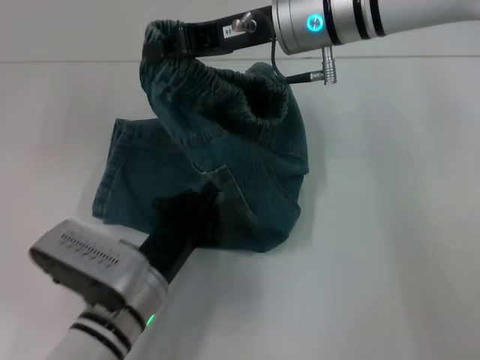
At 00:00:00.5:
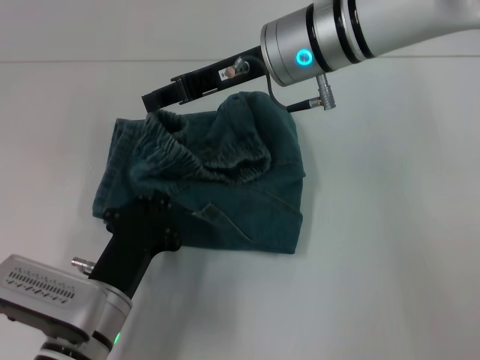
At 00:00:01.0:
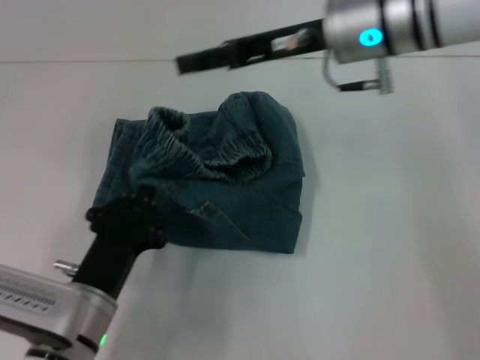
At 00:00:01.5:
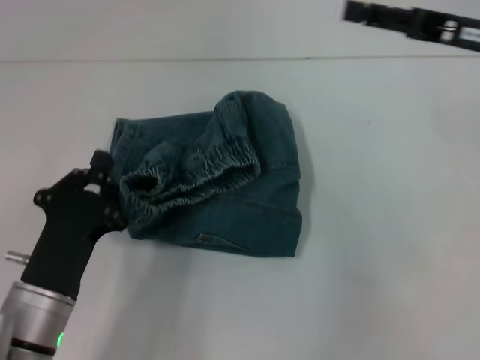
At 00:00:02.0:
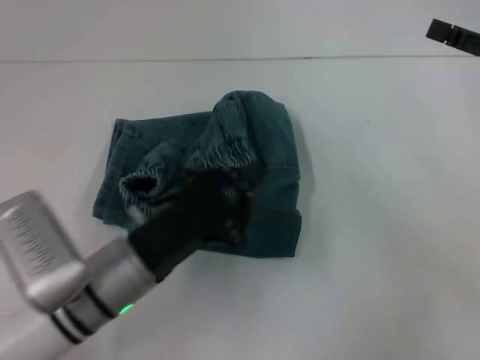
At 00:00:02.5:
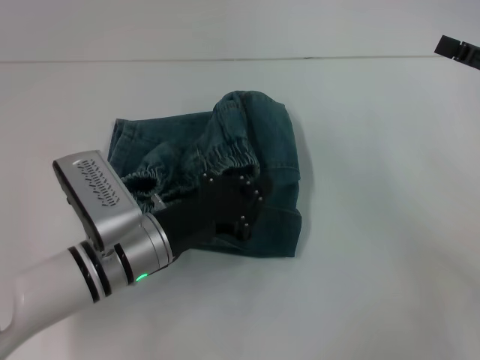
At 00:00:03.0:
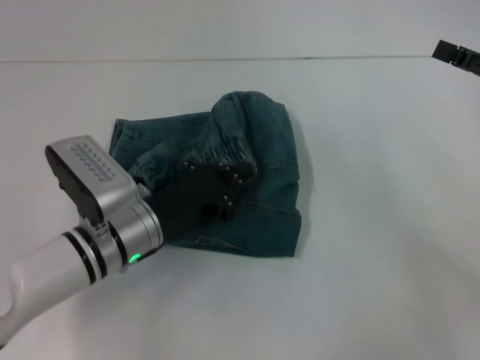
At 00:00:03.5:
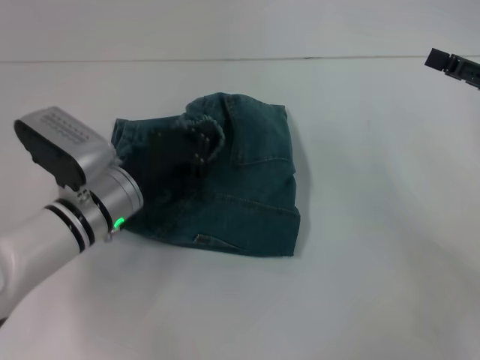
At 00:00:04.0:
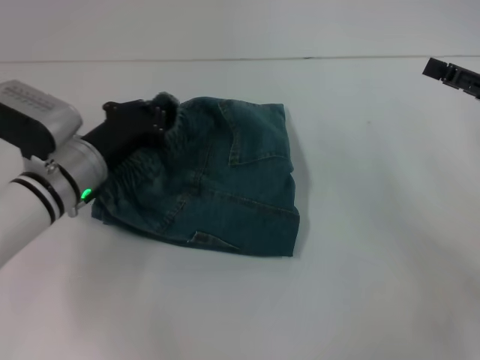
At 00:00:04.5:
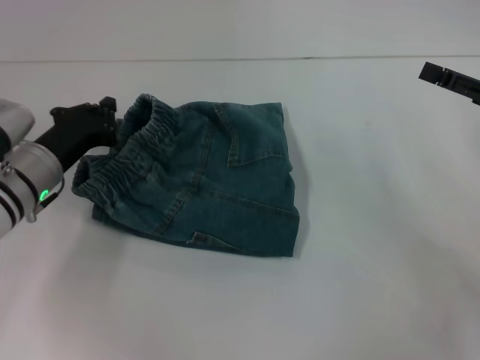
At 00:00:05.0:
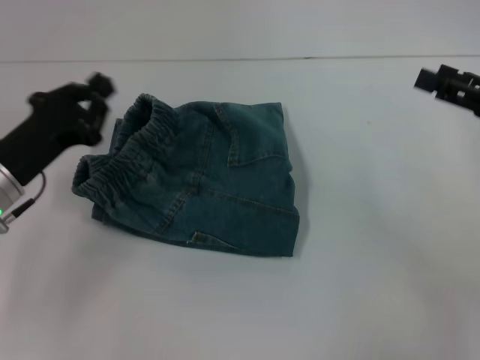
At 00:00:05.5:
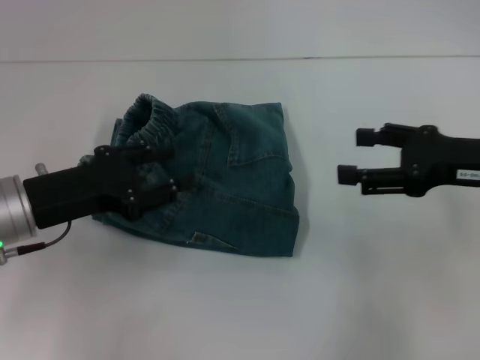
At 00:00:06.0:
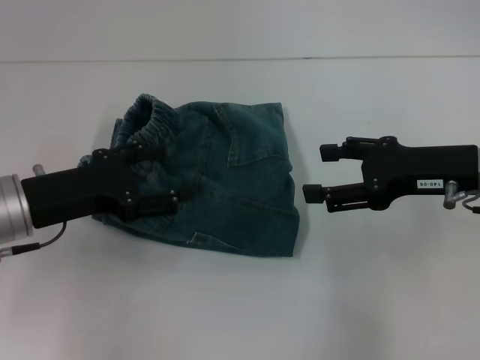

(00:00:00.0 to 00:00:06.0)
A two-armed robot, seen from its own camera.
Step, 00:00:01.0 - 00:00:04.0: Adjust the pants with your left hand.
00:00:00.0 - 00:00:02.0: The right gripper is displaced to the right by some 25 cm, and opens its fingers.
00:00:02.0 - 00:00:04.0: The left gripper goes roughly 15 cm forward and to the left.
00:00:04.0 - 00:00:06.0: The left gripper heads backward, upward and to the left, covering roughly 10 cm, and opens. Meanwhile the right gripper travels to the left by about 10 cm.

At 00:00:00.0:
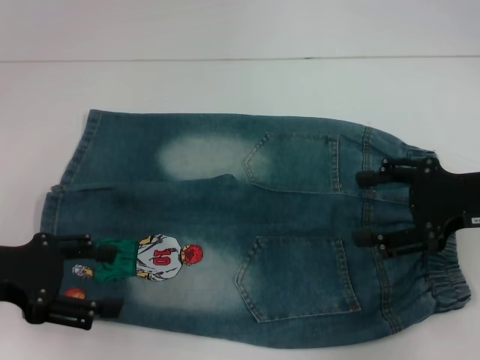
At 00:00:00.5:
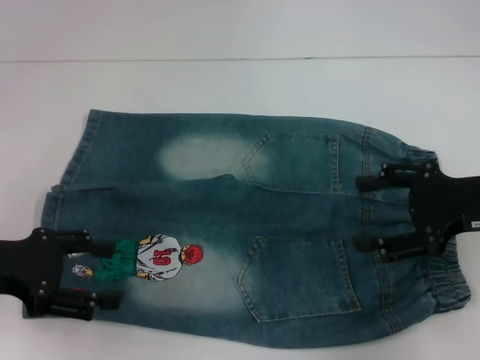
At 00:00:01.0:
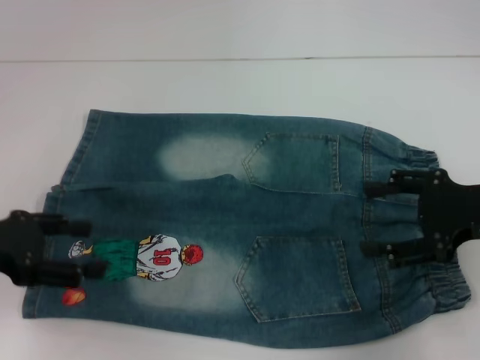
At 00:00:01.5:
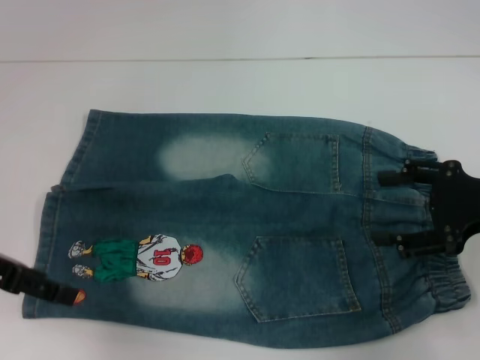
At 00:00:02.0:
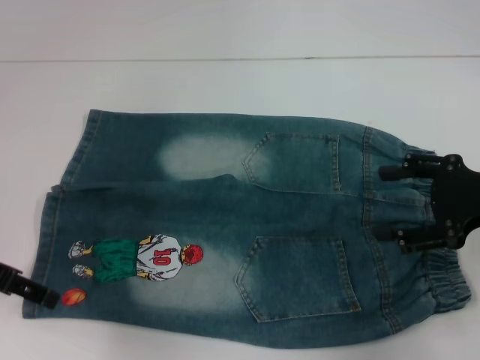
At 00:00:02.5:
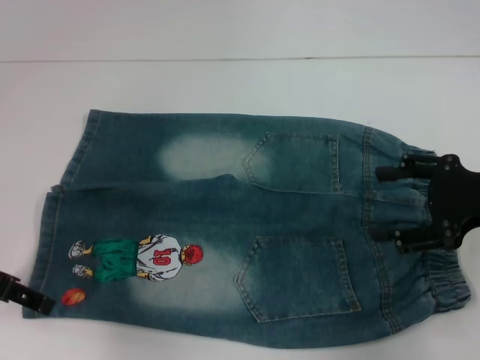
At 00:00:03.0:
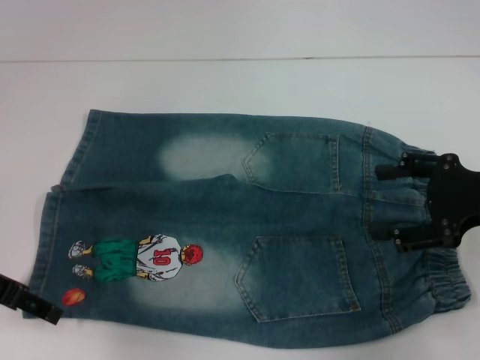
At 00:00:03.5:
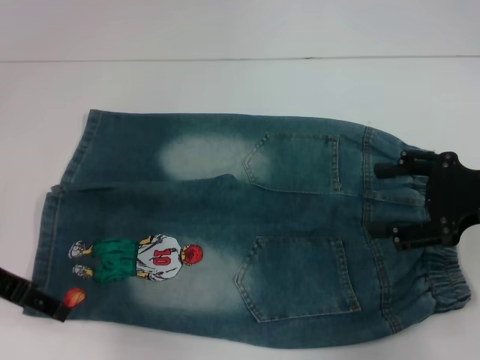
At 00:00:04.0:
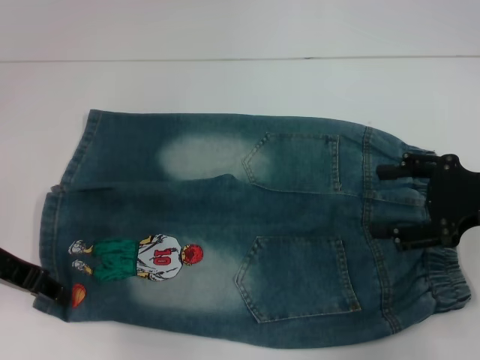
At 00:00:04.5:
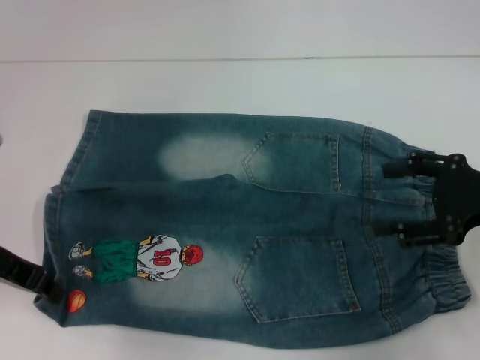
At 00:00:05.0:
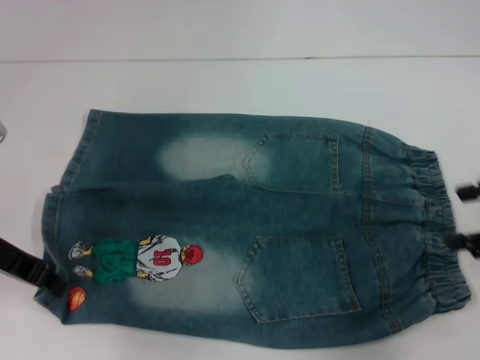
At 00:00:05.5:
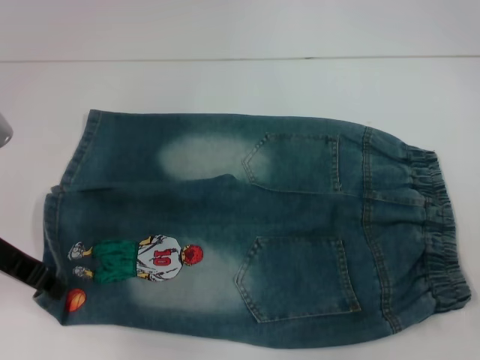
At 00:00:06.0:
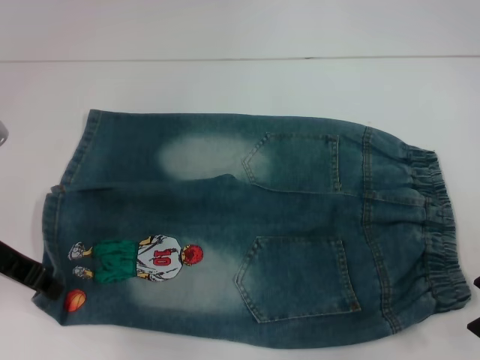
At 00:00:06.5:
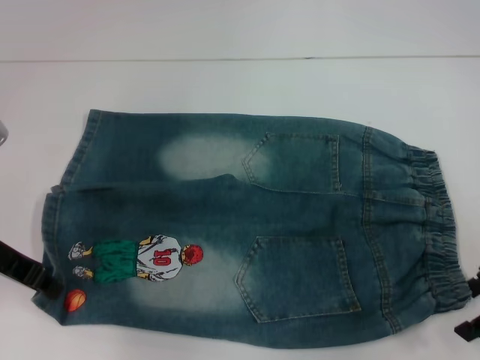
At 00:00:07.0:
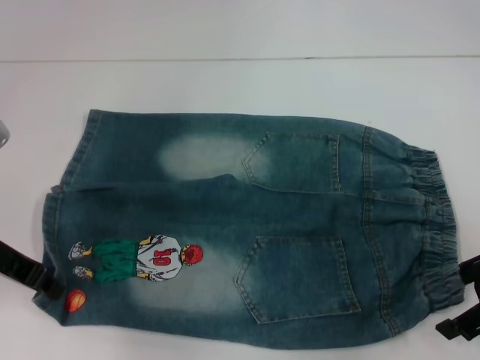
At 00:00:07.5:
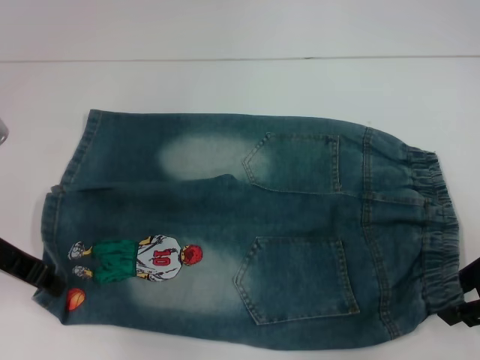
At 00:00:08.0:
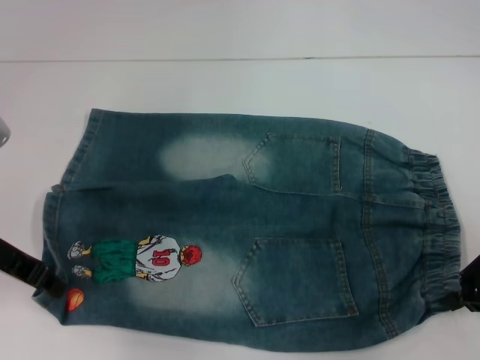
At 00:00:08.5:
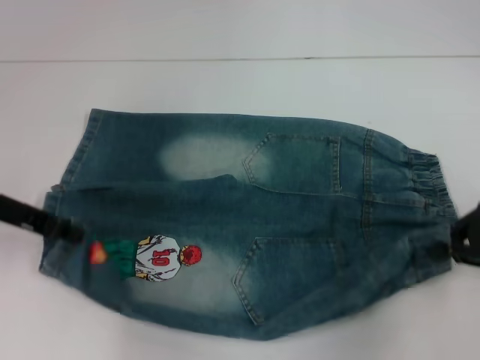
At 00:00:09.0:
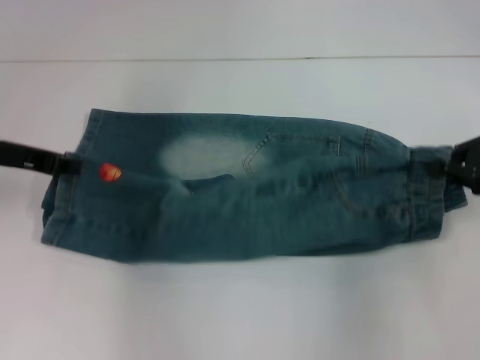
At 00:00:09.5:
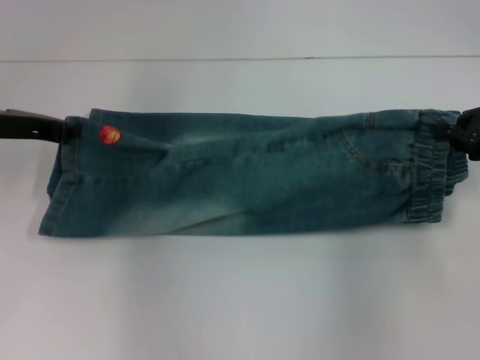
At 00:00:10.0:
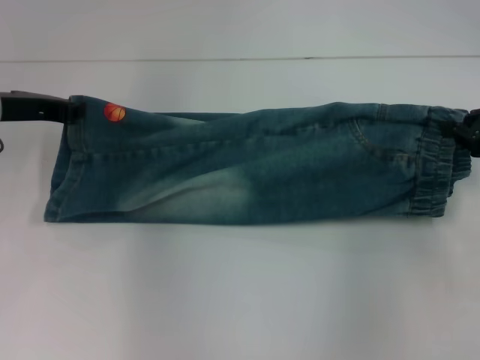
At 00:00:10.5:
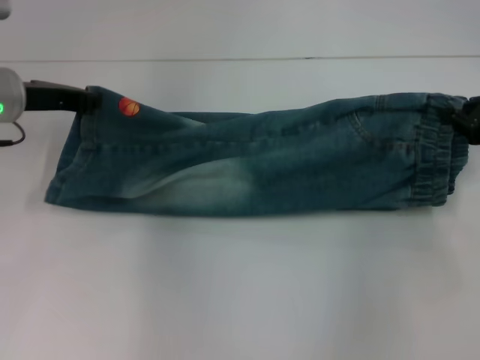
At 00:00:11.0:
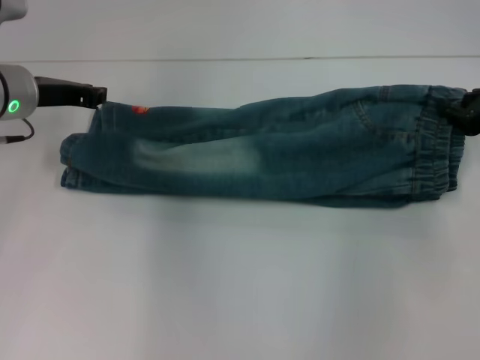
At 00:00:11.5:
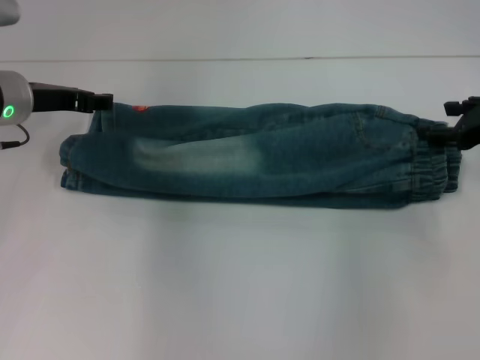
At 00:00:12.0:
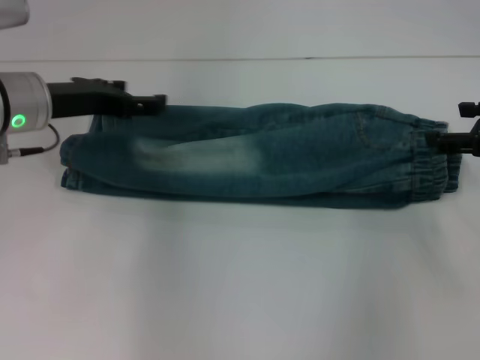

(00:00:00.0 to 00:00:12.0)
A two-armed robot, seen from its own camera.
Step, 00:00:00.0 - 00:00:03.5: Grab the lower left pant leg with your left hand.
Step, 00:00:04.0 - 00:00:07.5: Hold the lower right waistband with your right hand.
Step, 00:00:08.0 - 00:00:10.5: Fold upward with your left hand.
00:00:02.0 - 00:00:04.0: The left gripper closes up.
00:00:04.0 - 00:00:06.0: The left gripper closes.
00:00:06.0 - 00:00:08.0: The right gripper closes up.
00:00:08.0 - 00:00:10.0: Both grippers move forward, some 5 cm.
00:00:10.0 - 00:00:12.0: The left gripper opens up. Meanwhile the right gripper opens its fingers.

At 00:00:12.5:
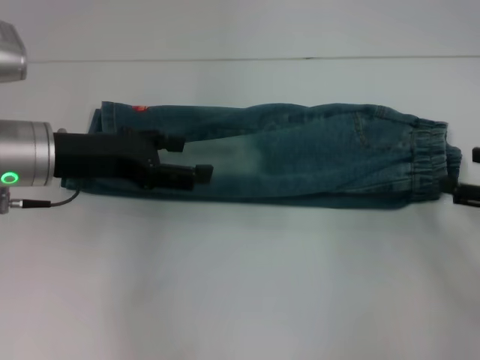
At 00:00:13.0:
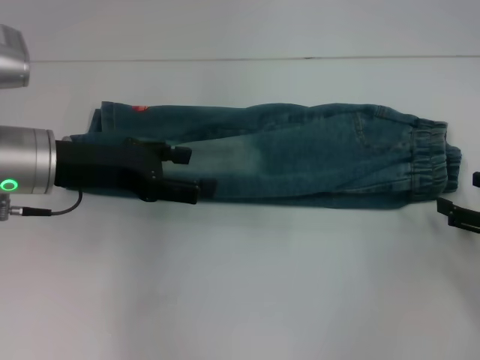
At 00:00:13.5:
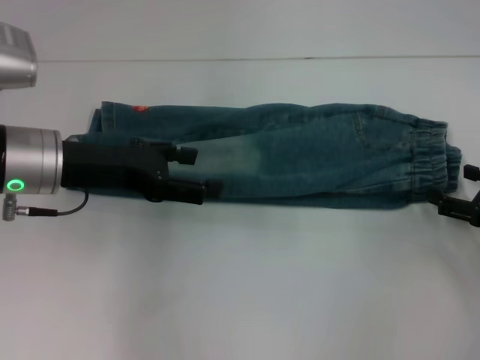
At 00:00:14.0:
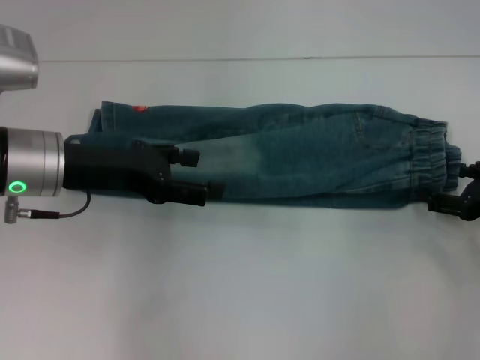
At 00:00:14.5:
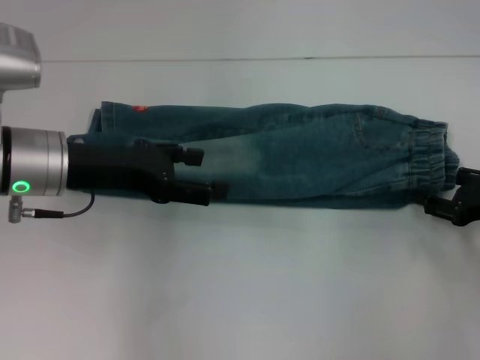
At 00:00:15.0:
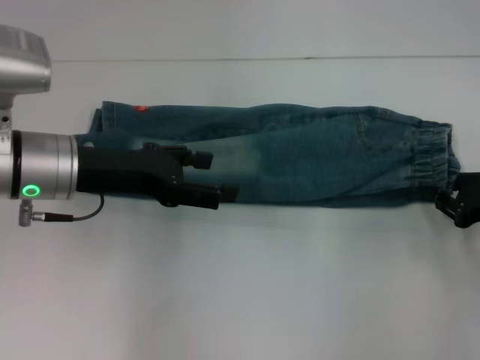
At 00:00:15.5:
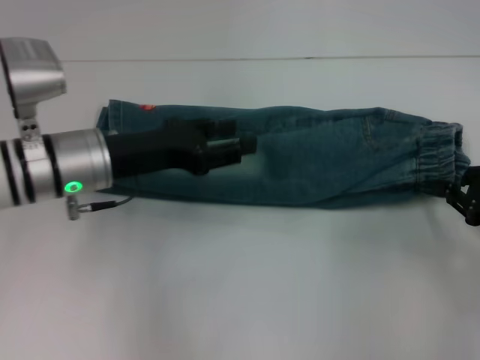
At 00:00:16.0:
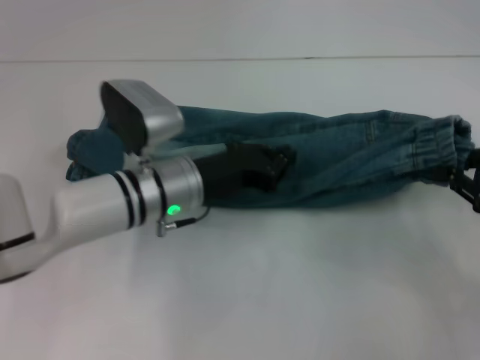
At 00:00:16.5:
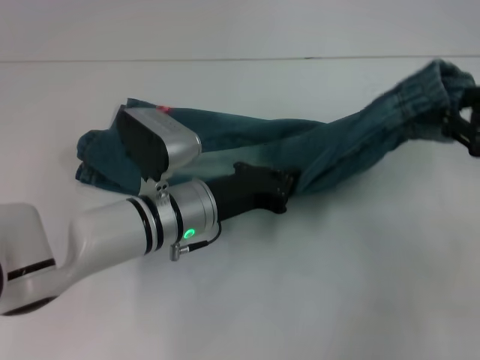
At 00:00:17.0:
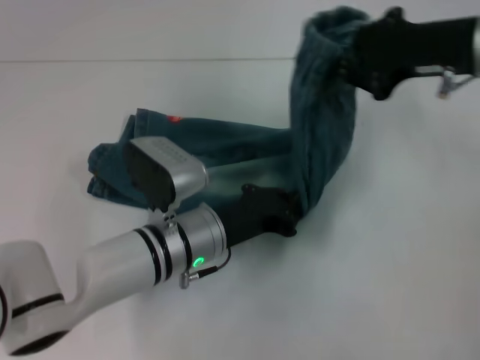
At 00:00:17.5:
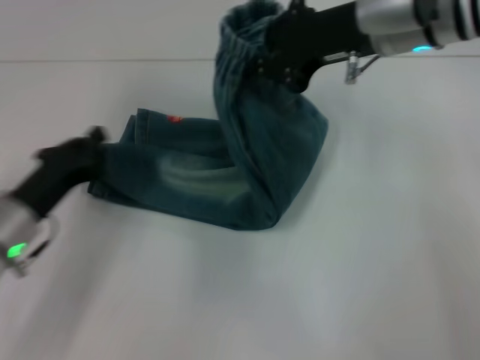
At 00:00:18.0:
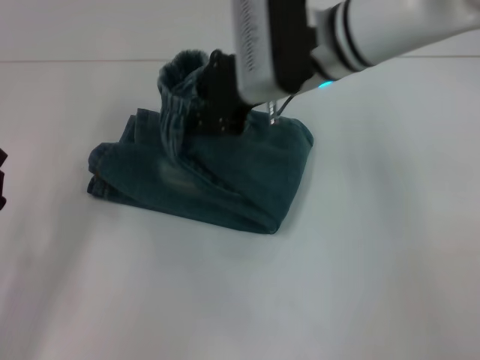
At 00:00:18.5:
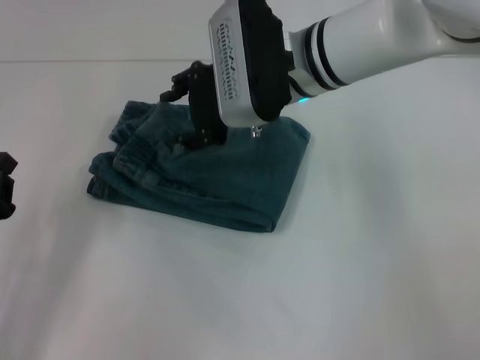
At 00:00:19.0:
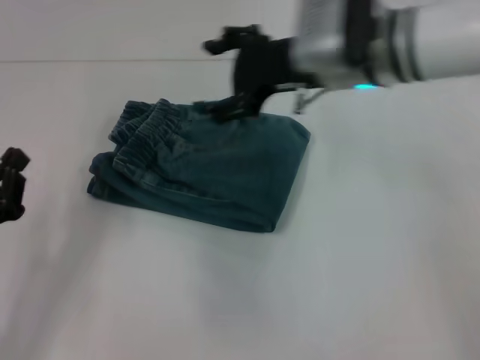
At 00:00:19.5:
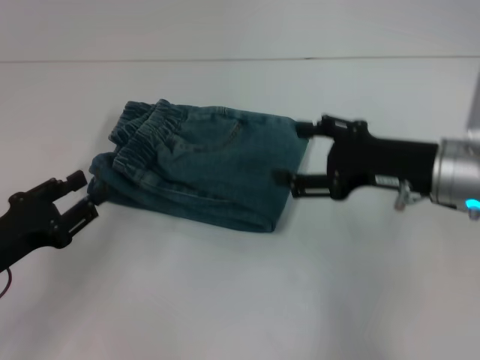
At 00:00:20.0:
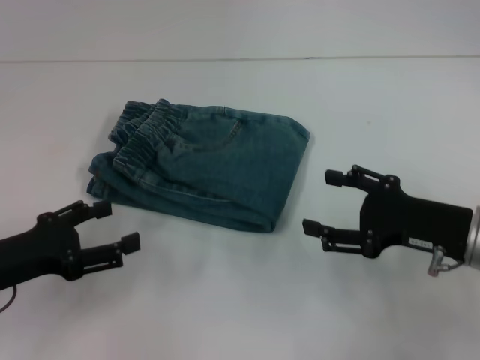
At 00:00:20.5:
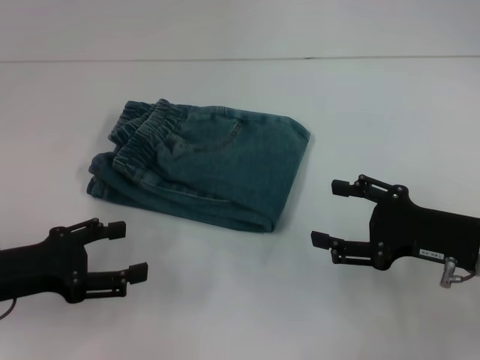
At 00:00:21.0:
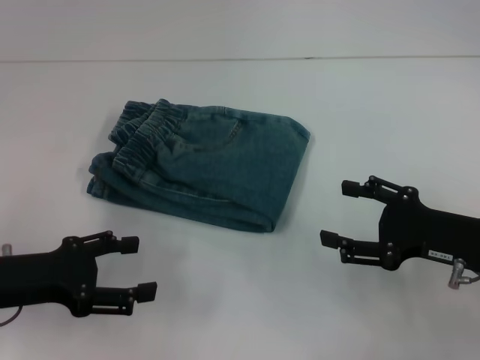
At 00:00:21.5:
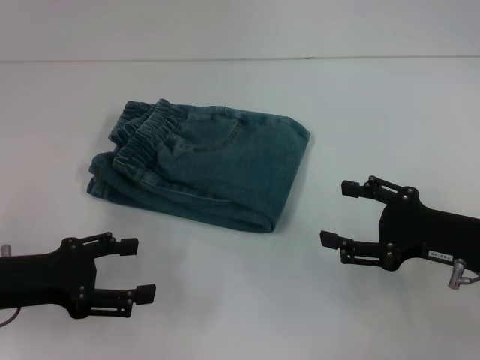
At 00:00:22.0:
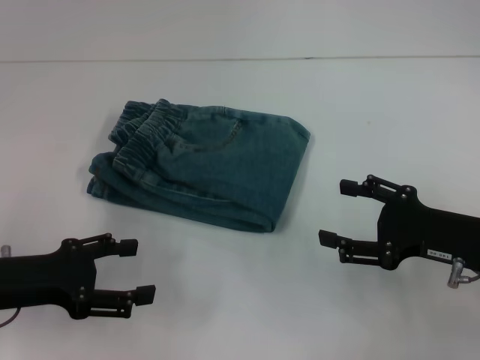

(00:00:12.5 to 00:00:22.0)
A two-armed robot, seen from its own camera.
Step, 00:00:12.5 - 00:00:15.0: Grab the waistband with your right hand.
Step, 00:00:15.5 - 00:00:17.0: Press the middle of the pants with your left hand.
Step, 00:00:17.5 - 00:00:18.0: Fold to the left with your right hand.
00:00:12.5 - 00:00:14.5: The right gripper moves approximately 5 cm.
00:00:14.5 - 00:00:16.5: The left gripper travels to the right and downward by approximately 15 cm, and closes its fingers, while the right gripper goes some 10 cm upward, and closes its fingers.
00:00:16.5 - 00:00:18.0: The right gripper is displaced to the left by roughly 25 cm; the left gripper goes about 25 cm to the left and backward.
00:00:18.0 - 00:00:20.0: The right gripper moves to the right, backward and downward, some 25 cm, and opens its fingers. The left gripper opens its fingers.
00:00:20.0 - 00:00:22.0: The grippers move only a little.
